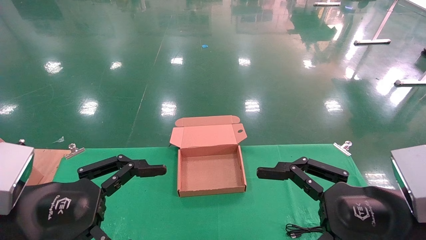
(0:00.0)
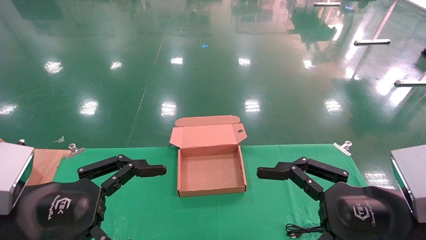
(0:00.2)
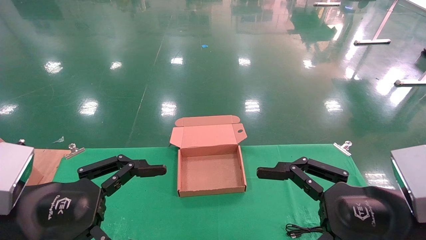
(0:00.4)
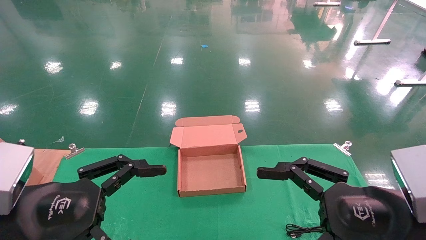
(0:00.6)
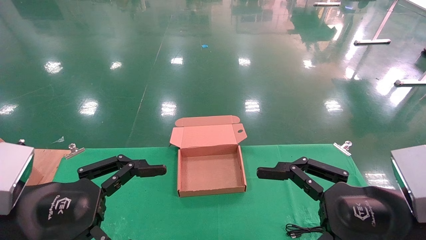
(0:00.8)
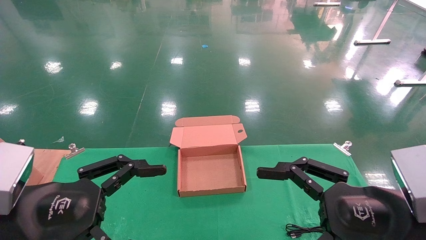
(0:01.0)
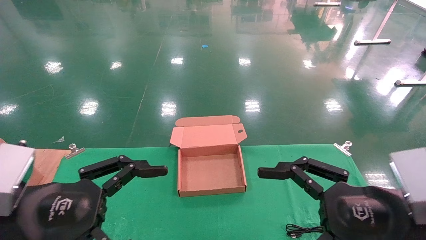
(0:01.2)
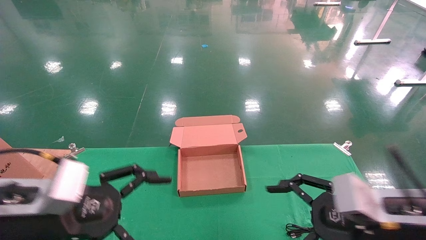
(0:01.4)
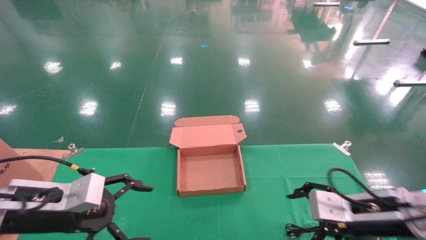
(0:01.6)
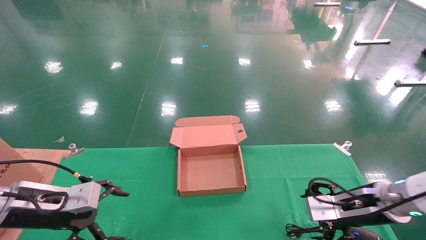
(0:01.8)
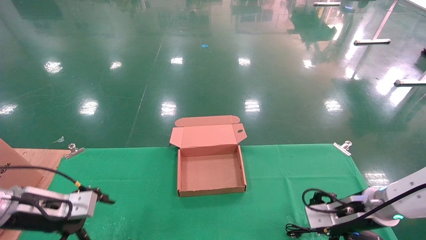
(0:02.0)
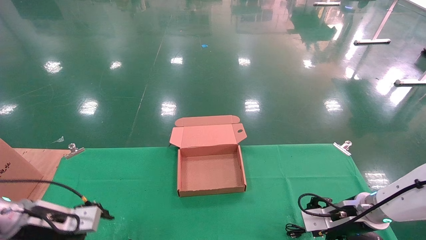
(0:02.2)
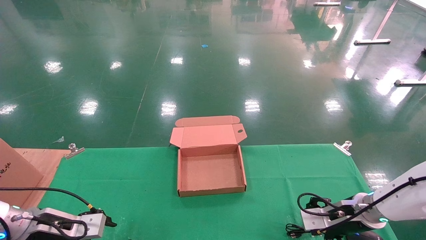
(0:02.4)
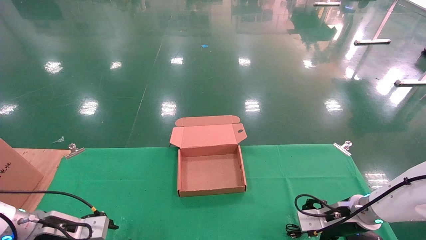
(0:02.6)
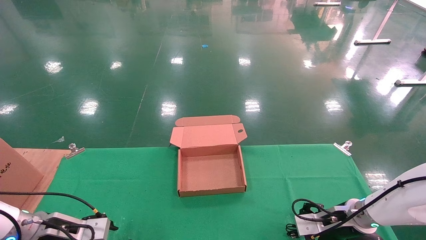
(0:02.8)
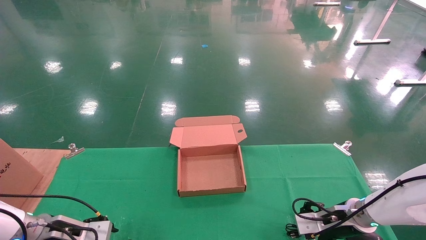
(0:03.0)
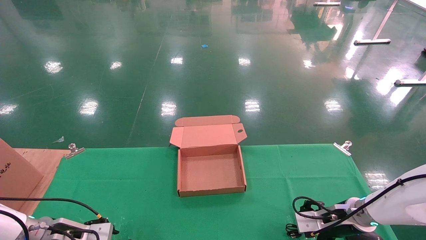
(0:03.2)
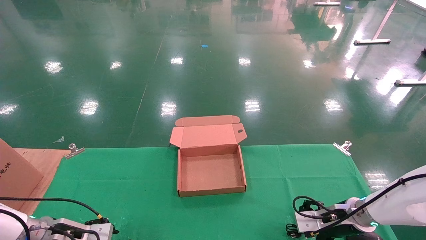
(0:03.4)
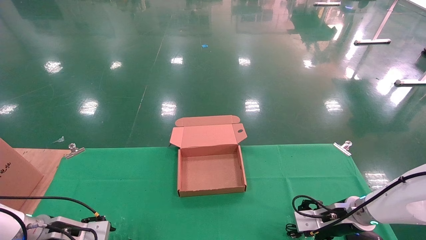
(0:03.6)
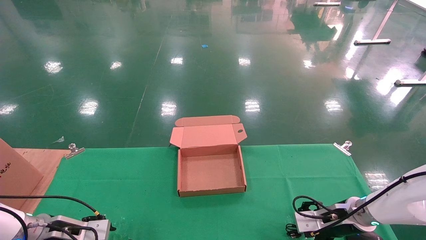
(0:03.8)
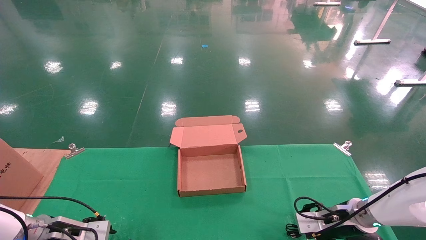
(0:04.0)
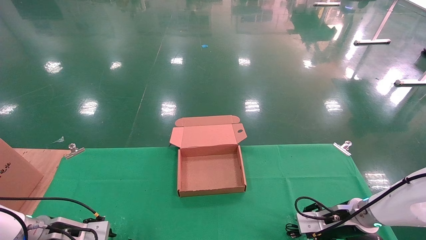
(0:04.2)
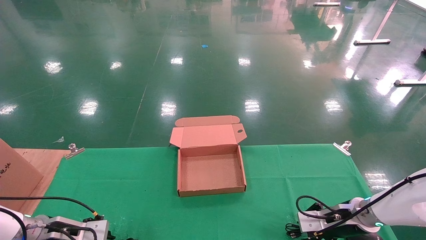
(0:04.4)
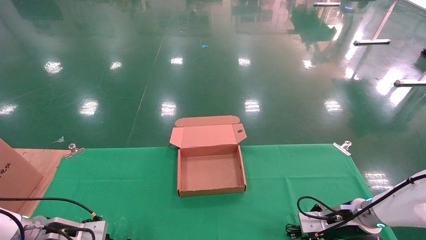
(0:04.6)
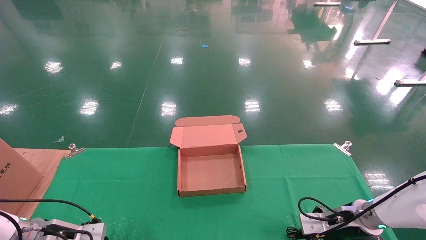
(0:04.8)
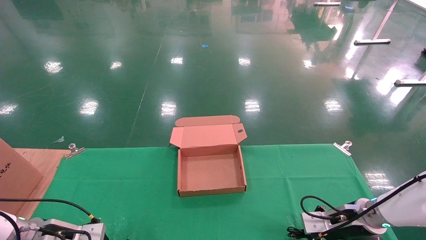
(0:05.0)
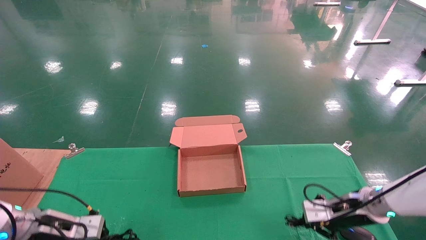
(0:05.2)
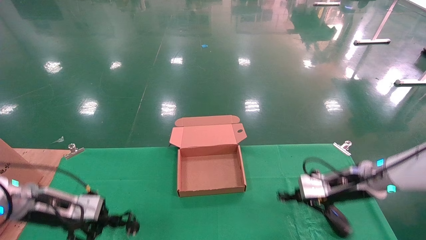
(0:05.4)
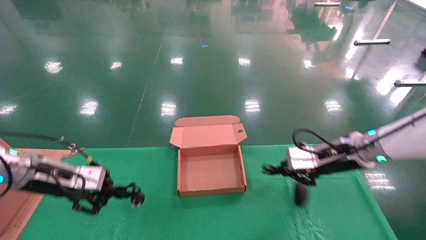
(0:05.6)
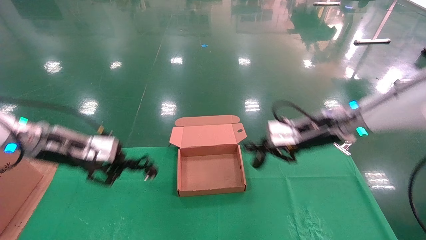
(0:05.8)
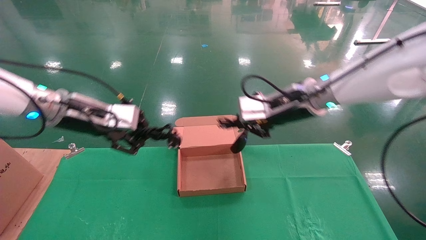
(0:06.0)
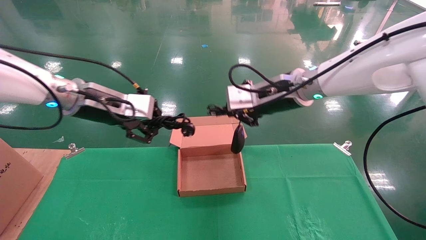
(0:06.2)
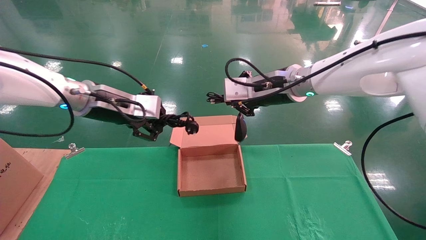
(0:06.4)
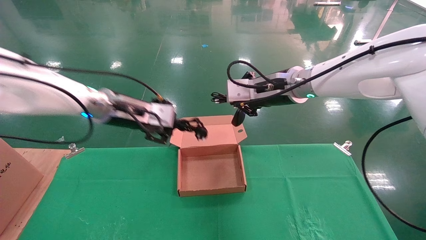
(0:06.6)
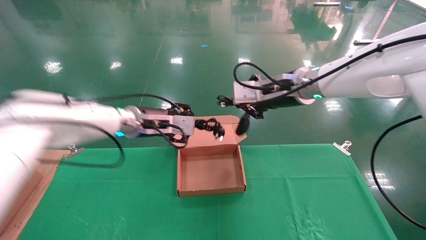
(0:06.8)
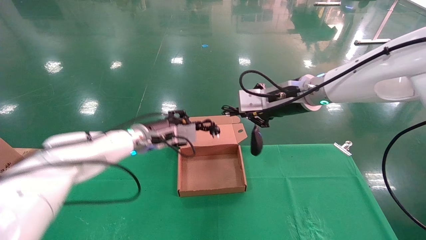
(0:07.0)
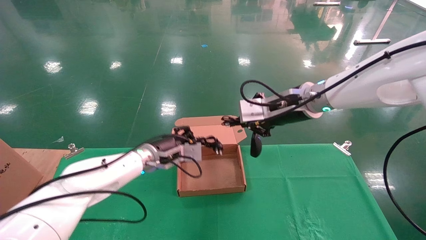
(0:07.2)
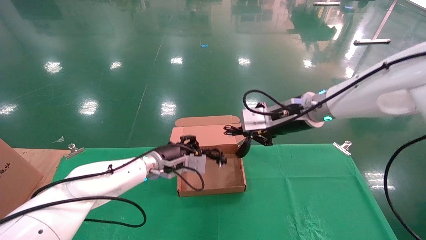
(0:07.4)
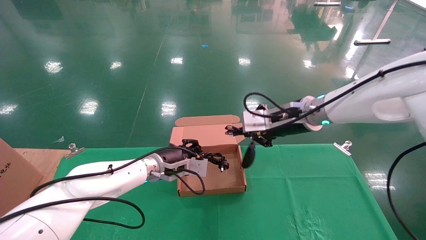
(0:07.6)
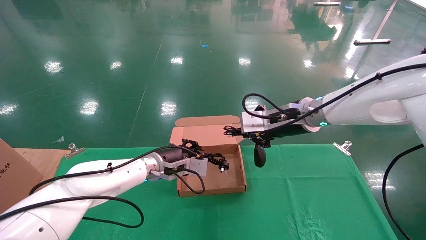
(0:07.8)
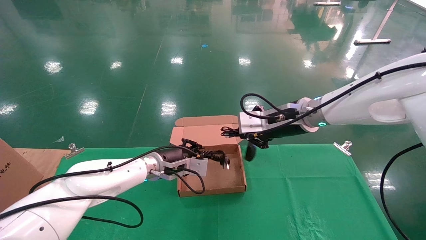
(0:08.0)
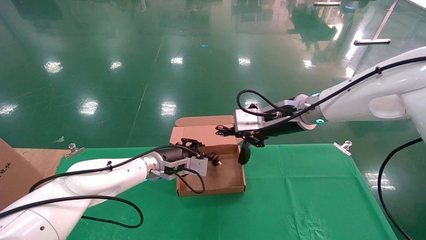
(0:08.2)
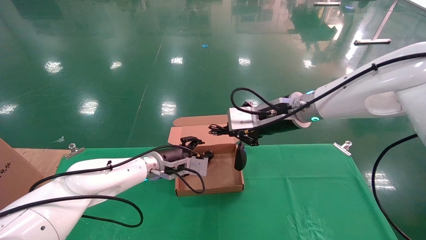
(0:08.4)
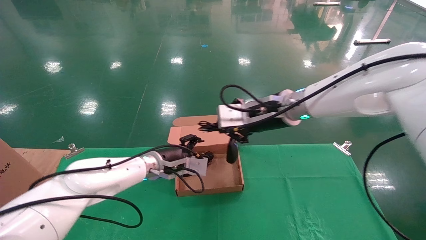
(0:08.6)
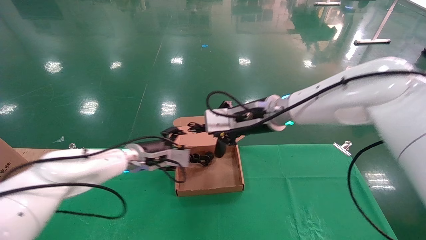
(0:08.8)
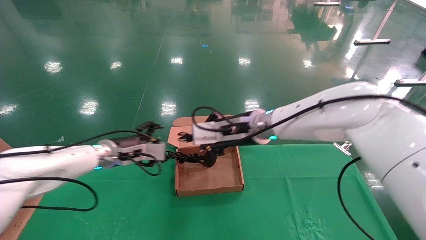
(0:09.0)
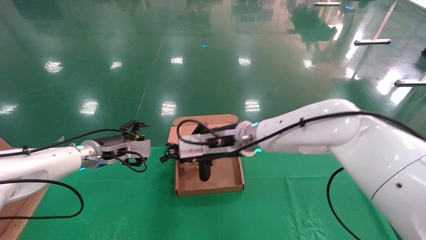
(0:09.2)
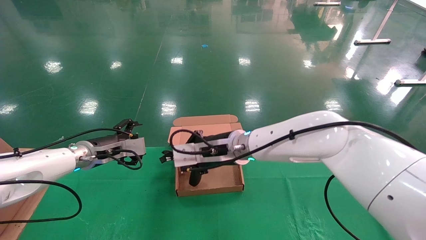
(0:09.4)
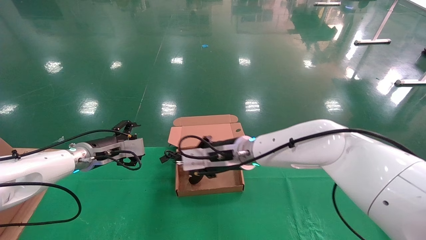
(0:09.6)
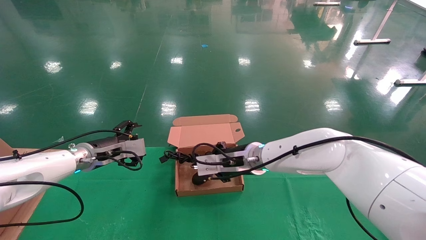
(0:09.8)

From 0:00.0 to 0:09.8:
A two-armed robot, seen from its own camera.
Step, from 0:01.4 to 0:05.4: Grab and lift both the mouse and power cord from the accessory packaging area at the same time.
From 0:00.0 to 0:01.4: The grippers both shift forward by roughly 5 cm.
From 0:01.4 to 0:02.8: The left gripper shifts approximately 20 cm downward, forward and to the left, while the right gripper is displaced forward and downward by roughly 20 cm.
From 0:02.8 to 0:04.2: The right gripper closes up.
From 0:04.2 to 0:05.6: Both grippers move upward, roughly 15 cm. The left gripper closes up; the right gripper closes.
From 0:05.6 to 0:07.0: The left gripper shifts some 20 cm to the right and forward; the right gripper goes about 15 cm upward and to the left.
From 0:07.0 to 0:08.4: The left gripper moves downward, roughly 5 cm, and opens its fingers.
From 0:08.4 to 0:09.8: The left gripper goes approximately 15 cm to the left, and opens its fingers. The right gripper heads downward and to the left, covering approximately 15 cm.

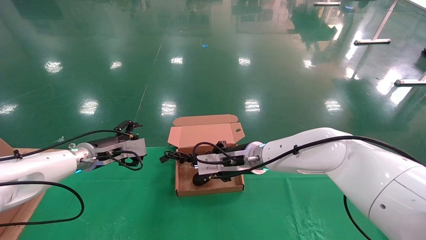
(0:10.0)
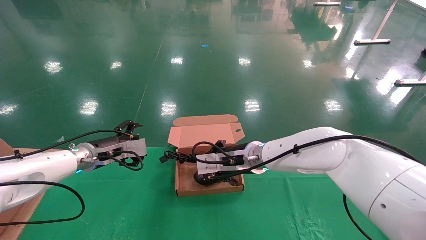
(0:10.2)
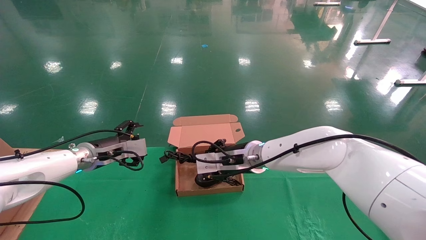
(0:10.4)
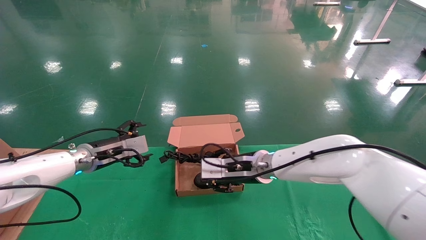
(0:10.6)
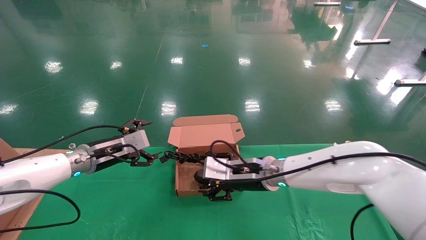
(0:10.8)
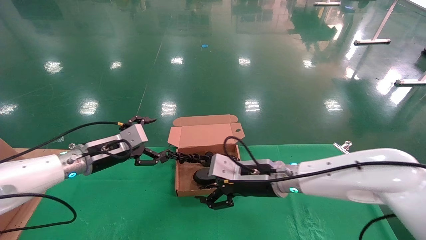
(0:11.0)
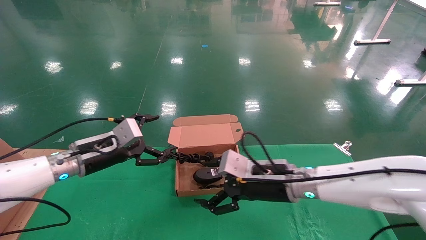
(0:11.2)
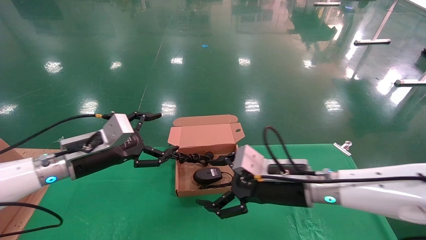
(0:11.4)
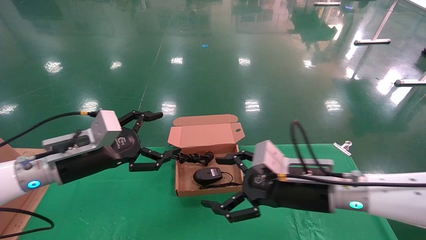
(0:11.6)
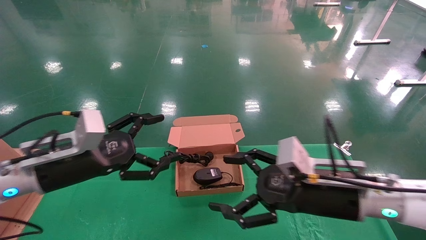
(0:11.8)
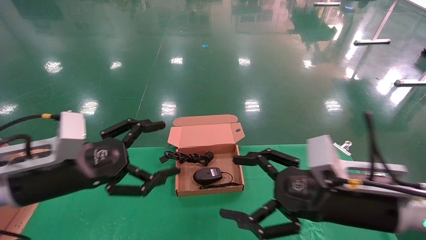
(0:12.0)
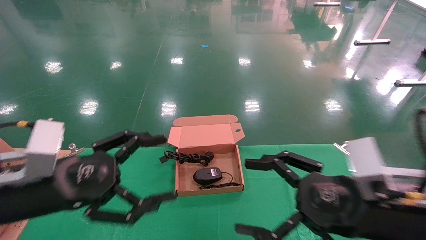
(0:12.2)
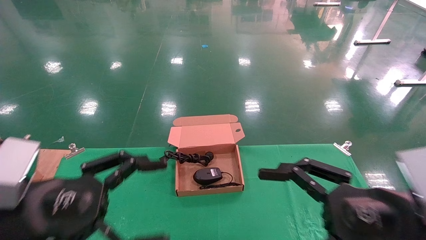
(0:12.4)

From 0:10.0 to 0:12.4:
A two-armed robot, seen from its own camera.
From 0:10.0 to 0:11.2: The right gripper moves backward and to the right, roughly 10 cm, and opens its fingers. The left gripper goes some 5 cm backward.
From 0:11.2 to 0:12.4: The right gripper heads backward and to the right, covering some 20 cm, while the left gripper goes roughly 20 cm backward.

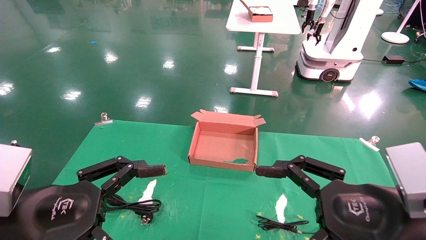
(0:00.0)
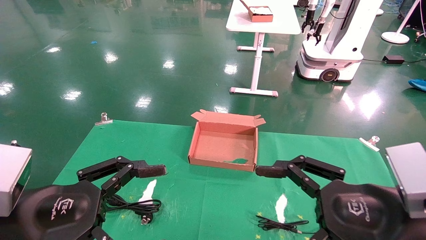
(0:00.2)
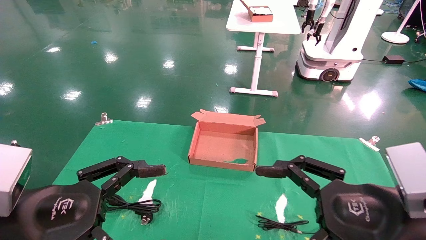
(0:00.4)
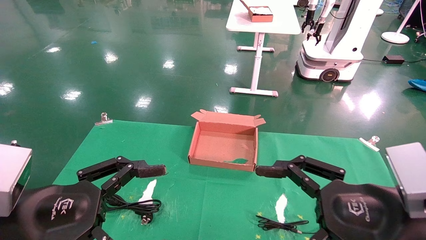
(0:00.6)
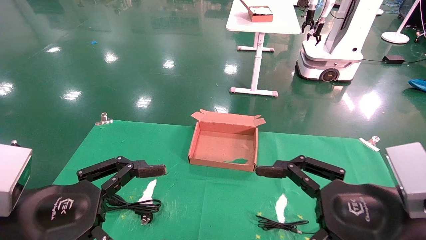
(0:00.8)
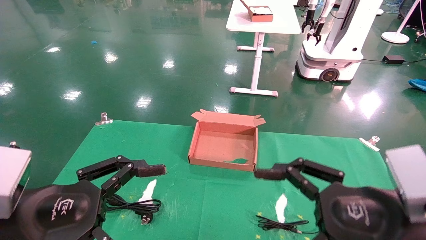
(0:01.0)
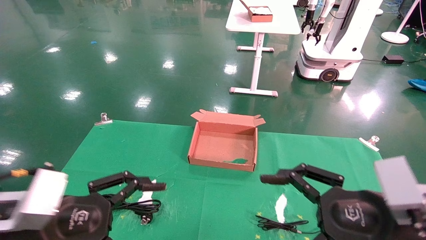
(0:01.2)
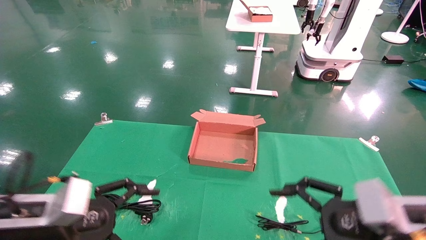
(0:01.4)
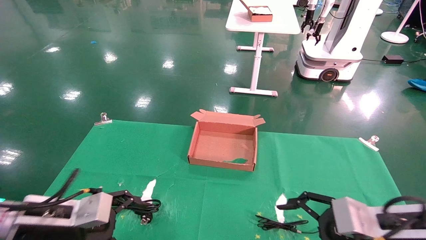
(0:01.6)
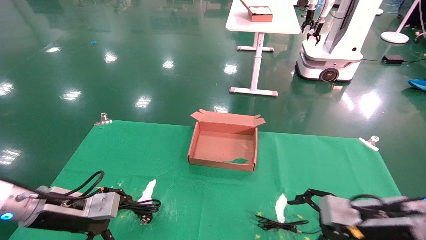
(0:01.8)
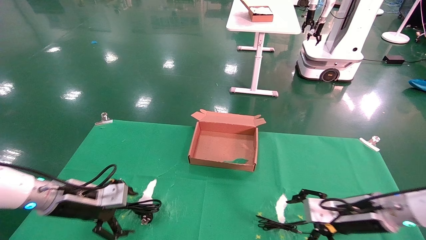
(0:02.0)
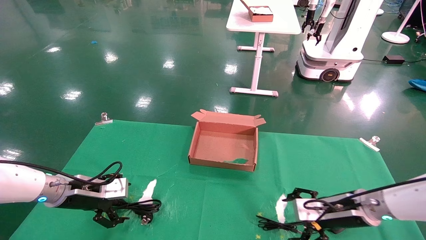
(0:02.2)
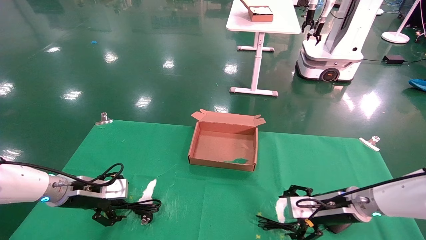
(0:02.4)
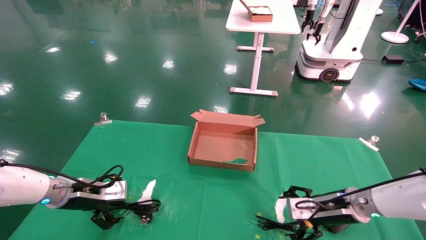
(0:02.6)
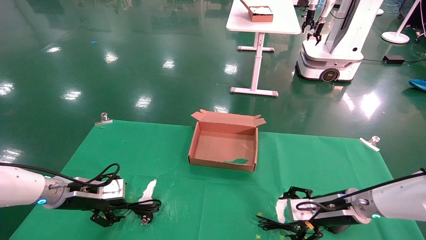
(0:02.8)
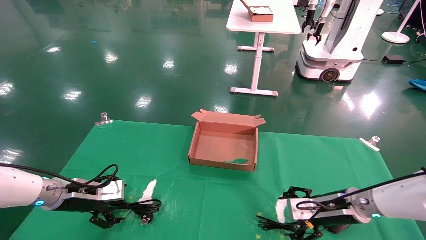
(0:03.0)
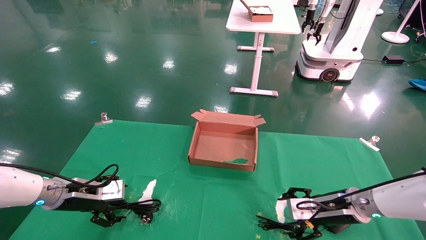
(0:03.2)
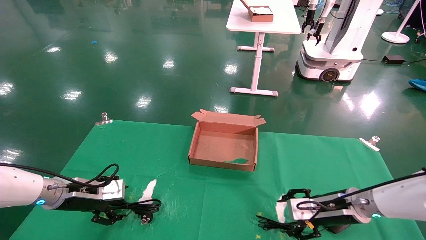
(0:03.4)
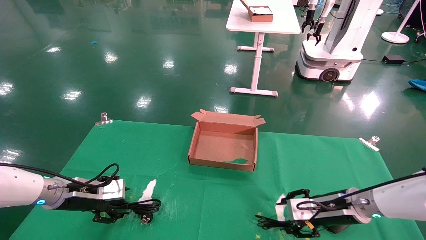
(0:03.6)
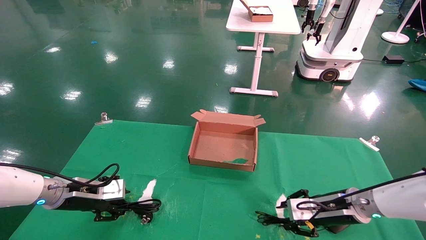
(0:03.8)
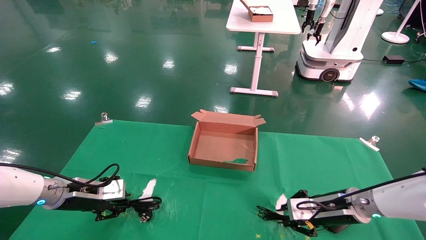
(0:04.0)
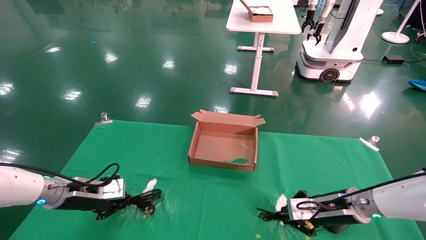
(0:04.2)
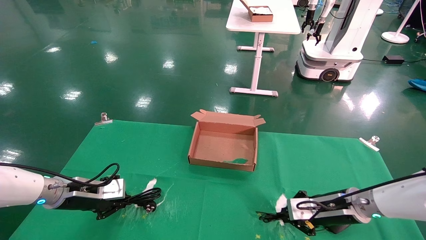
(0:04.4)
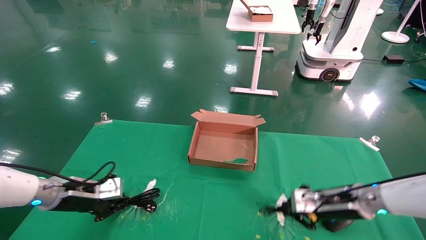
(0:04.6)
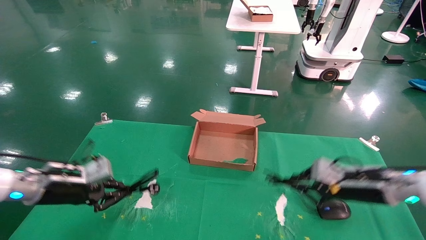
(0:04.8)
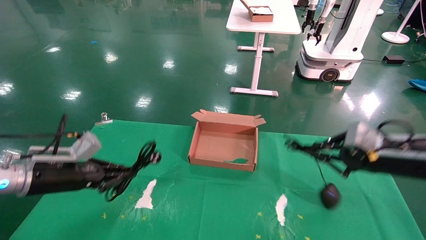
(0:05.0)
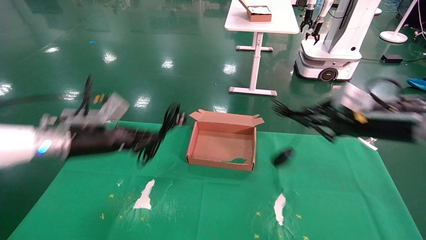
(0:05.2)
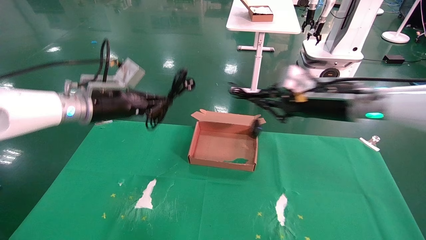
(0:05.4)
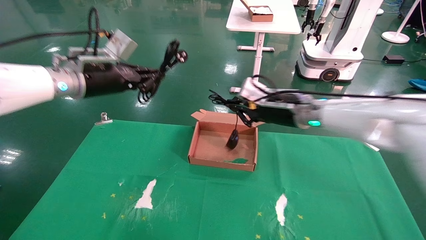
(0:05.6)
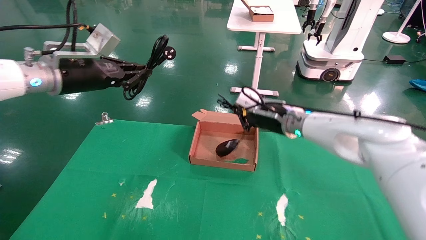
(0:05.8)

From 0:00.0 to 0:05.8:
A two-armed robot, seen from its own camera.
Step, from 0:01.2 to 0:04.2: Grab and lift both the mouse and power cord from the accessory packaging area at the same time.
From 0:00.0 to 0:01.4: The left gripper is displaced forward and downward by some 10 cm. Meanwhile the right gripper moves approximately 5 cm.
From 0:01.4 to 0:02.8: The left gripper goes about 15 cm forward. Meanwhile the right gripper moves forward and downward, about 20 cm.
From 0:02.8 to 0:04.4: The left gripper closes; the right gripper closes.
From 0:04.4 to 0:05.8: The left gripper heads upward, covering roughly 25 cm, while the right gripper moves upward, to the left and forward, approximately 20 cm.
